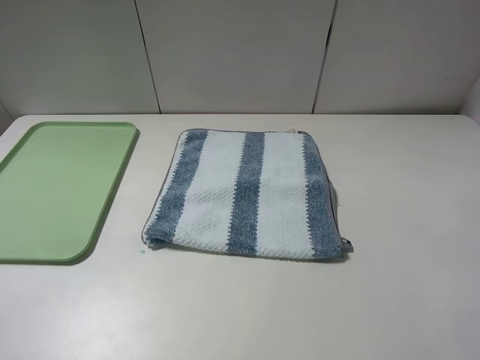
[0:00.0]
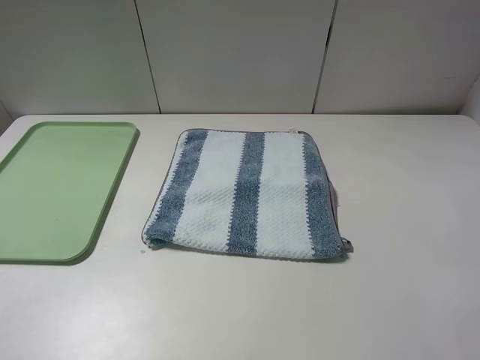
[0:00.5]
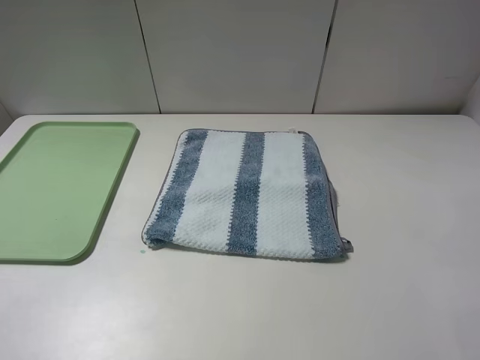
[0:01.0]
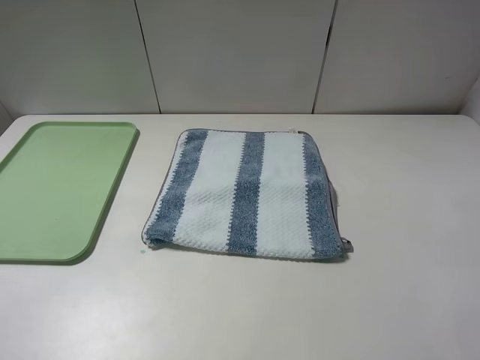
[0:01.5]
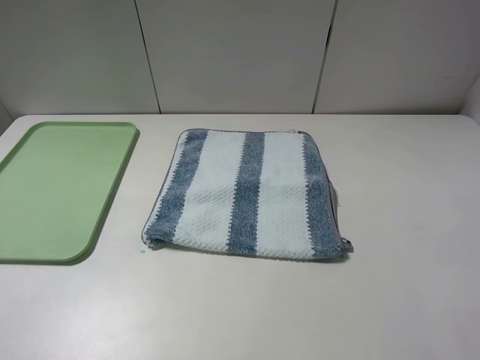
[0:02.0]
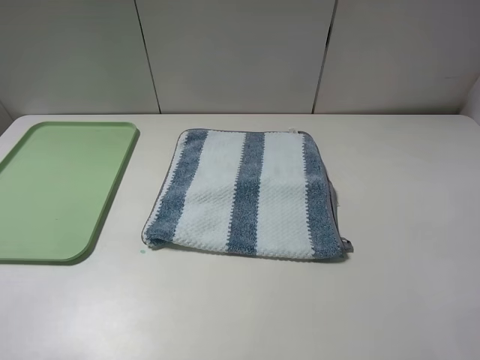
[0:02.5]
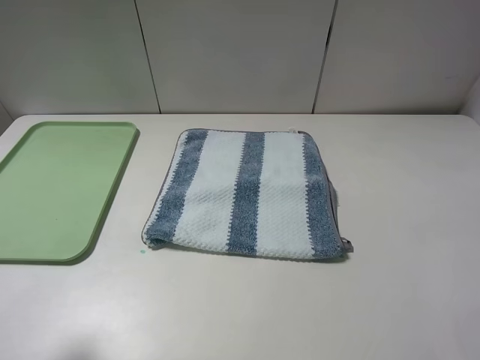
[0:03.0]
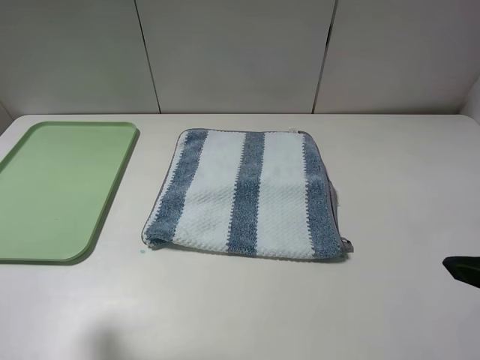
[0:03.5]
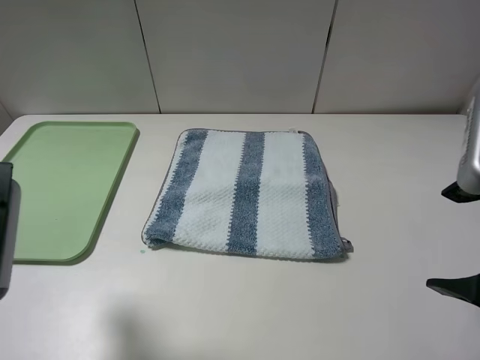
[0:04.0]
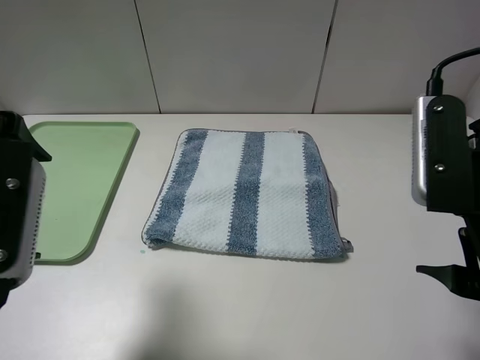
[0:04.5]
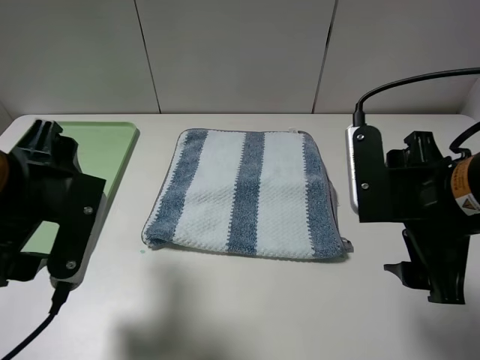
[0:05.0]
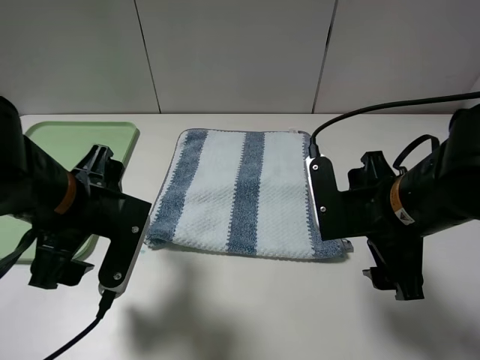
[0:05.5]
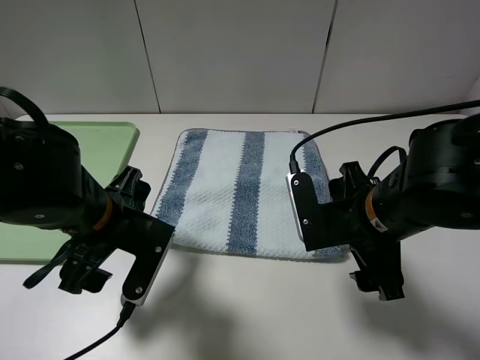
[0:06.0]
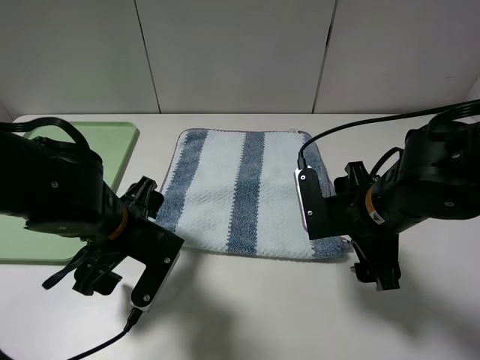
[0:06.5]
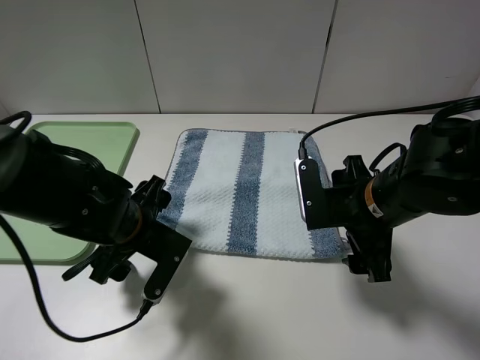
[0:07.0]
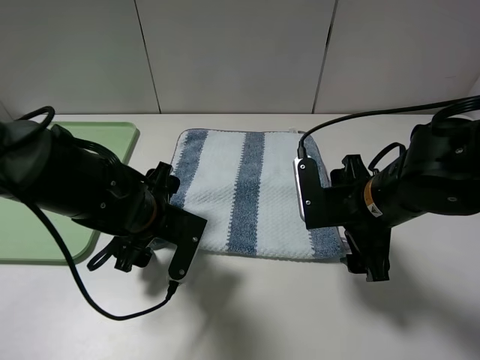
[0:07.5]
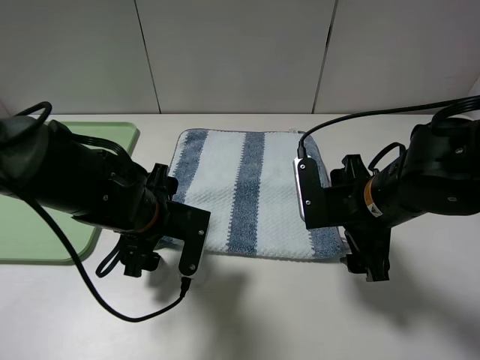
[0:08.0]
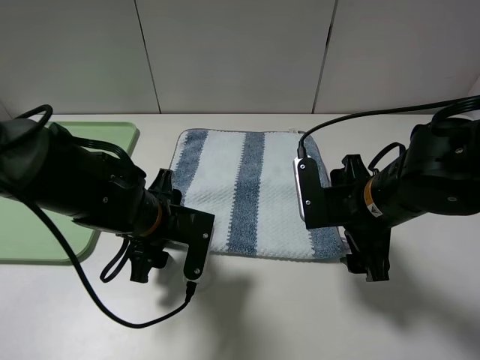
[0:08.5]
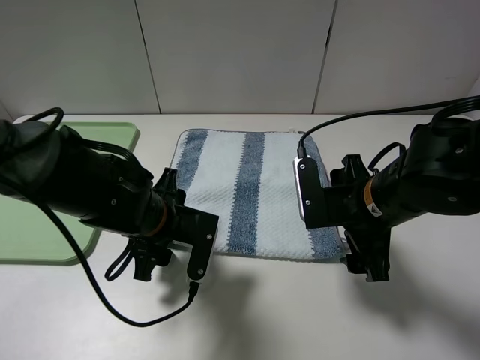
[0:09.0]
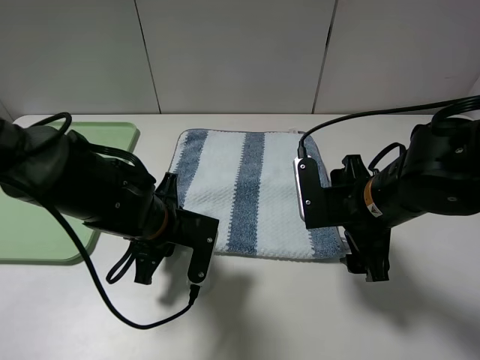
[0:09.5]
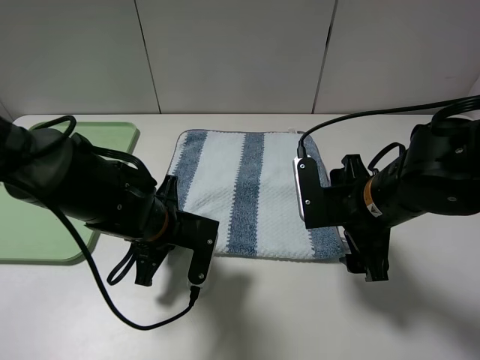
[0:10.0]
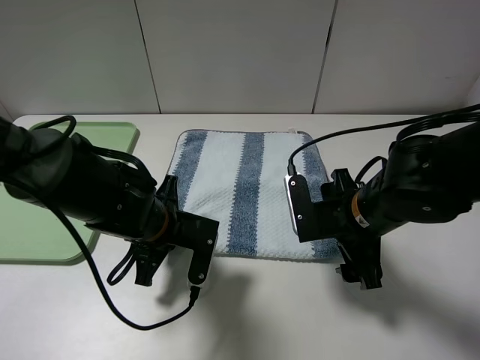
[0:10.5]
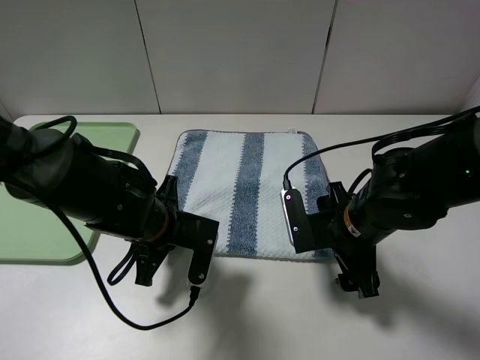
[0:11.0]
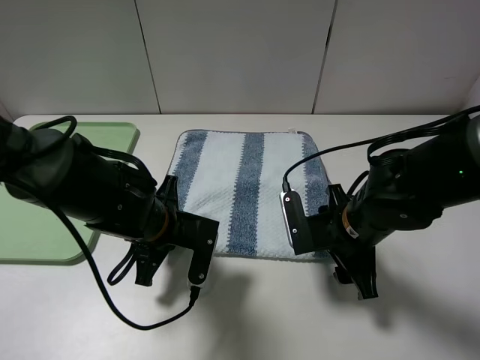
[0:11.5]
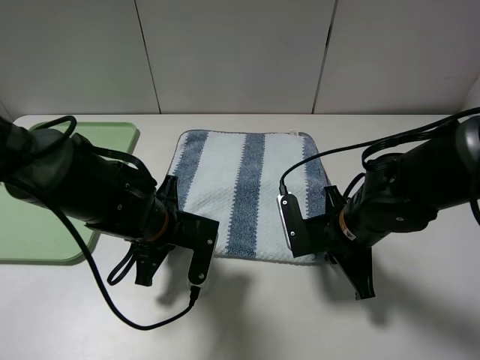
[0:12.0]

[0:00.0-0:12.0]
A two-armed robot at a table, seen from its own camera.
Step, 0:00.0 to 0:10.0: Grasp the blue white towel with the left gripper.
0:00.0 to 0:02.0: The two grippers keep their place.
0:02.0 to 0:04.0: The left gripper heads forward and to the right, covering approximately 15 cm. The right gripper shifts approximately 15 cm forward and to the left.
0:04.0 to 0:06.0: The right gripper moves downward, to the left and forward, roughly 15 cm, while the left gripper is displaced downward, to the right and forward by roughly 15 cm.
0:06.0 to 0:08.0: The left gripper is displaced downward by some 5 cm.
0:08.0 to 0:10.0: The left gripper closes its fingers.
0:10.0 to 0:12.0: The right gripper is displaced downward by some 5 cm, and closes its fingers.

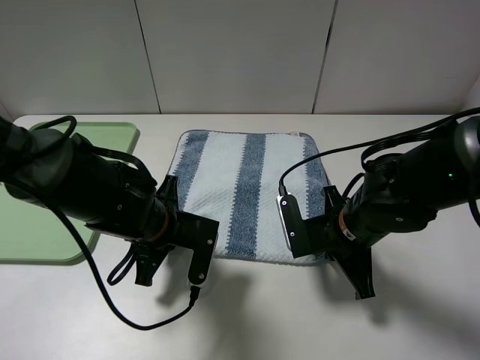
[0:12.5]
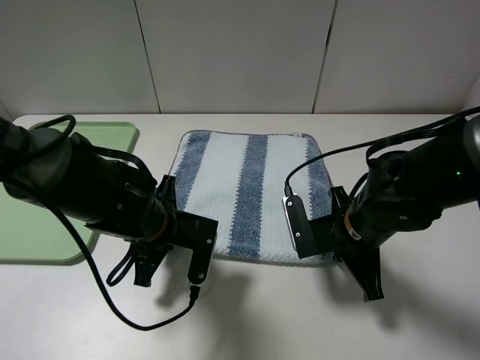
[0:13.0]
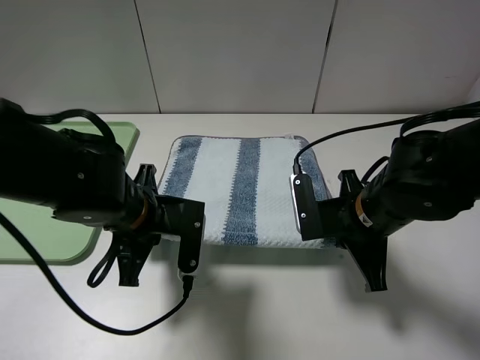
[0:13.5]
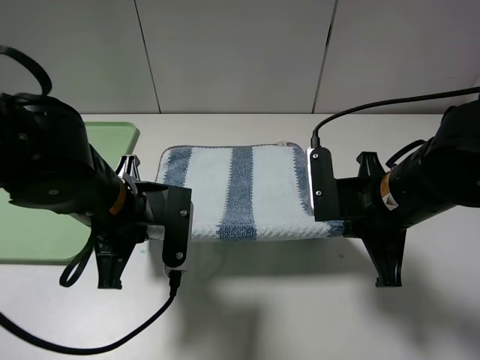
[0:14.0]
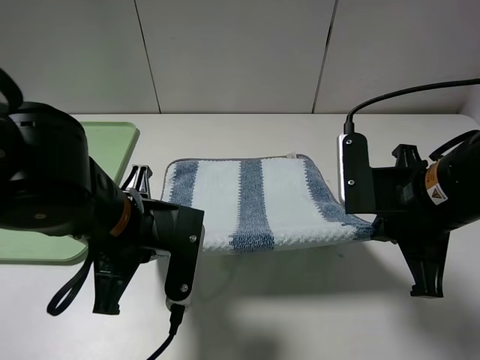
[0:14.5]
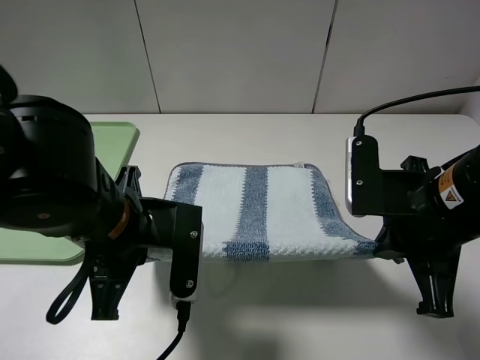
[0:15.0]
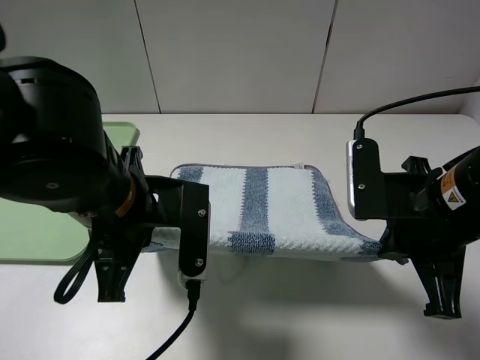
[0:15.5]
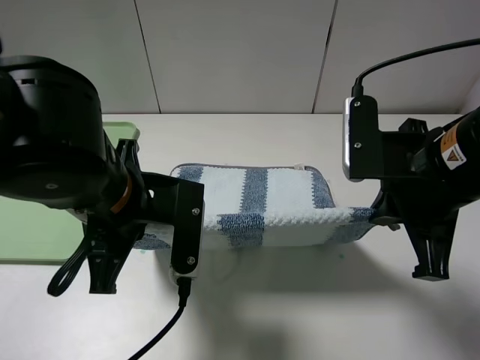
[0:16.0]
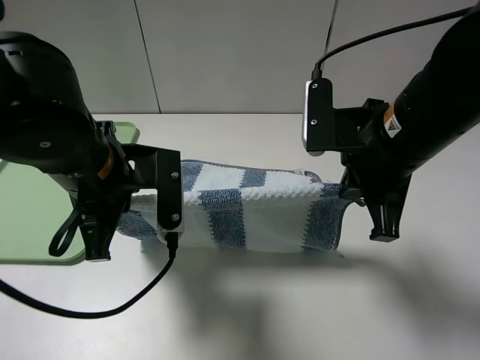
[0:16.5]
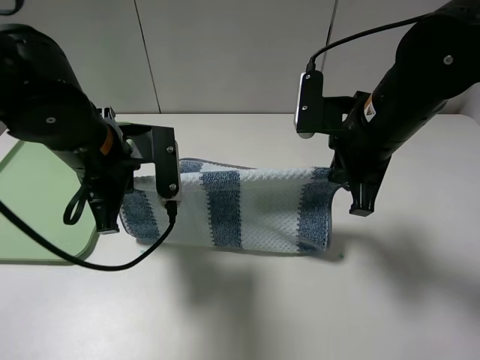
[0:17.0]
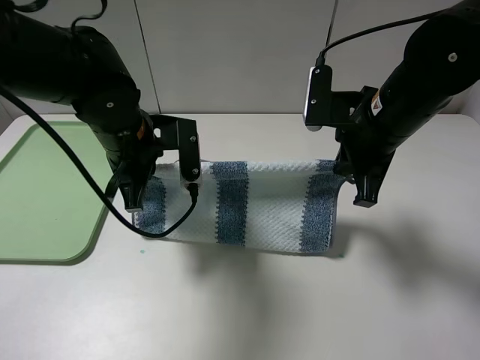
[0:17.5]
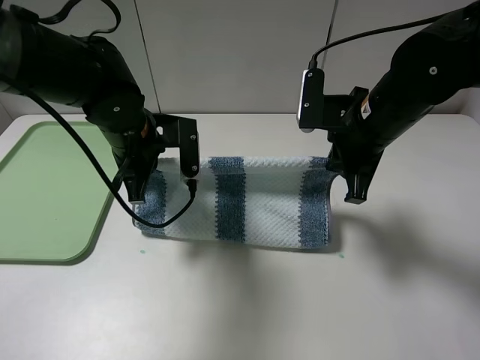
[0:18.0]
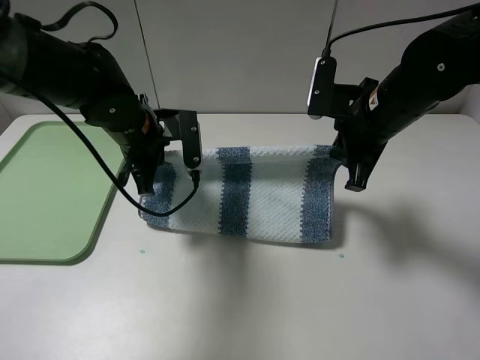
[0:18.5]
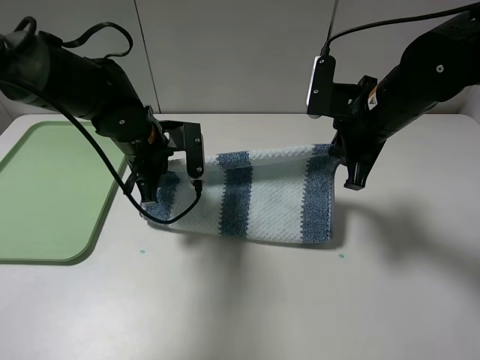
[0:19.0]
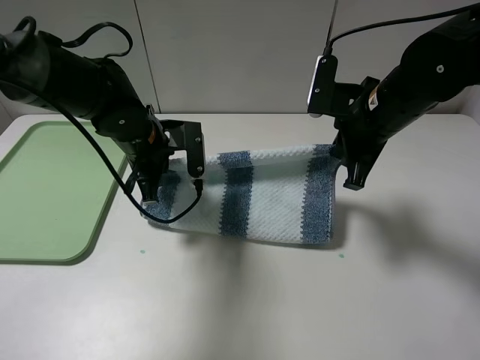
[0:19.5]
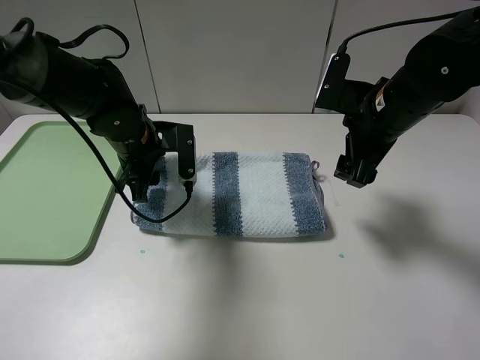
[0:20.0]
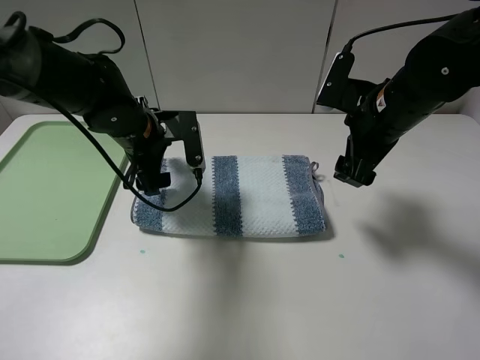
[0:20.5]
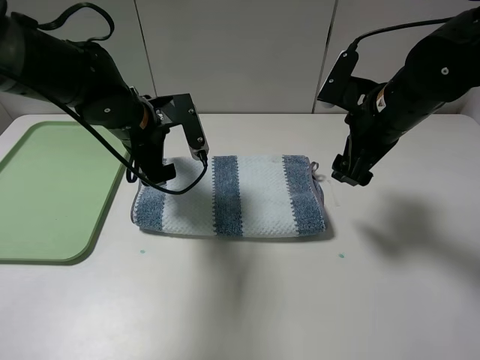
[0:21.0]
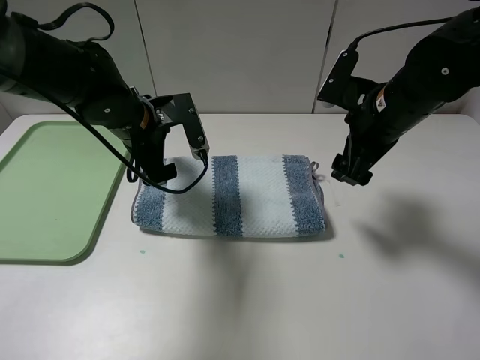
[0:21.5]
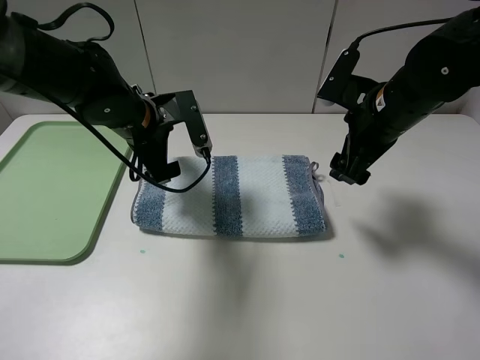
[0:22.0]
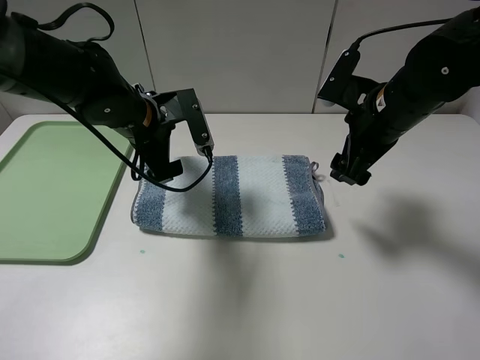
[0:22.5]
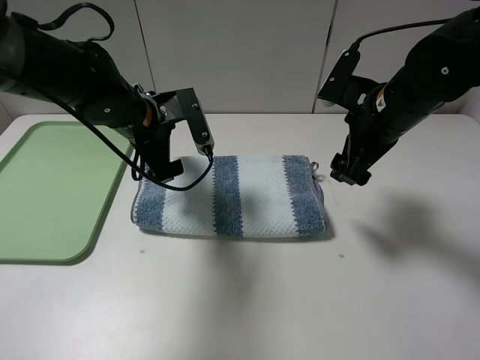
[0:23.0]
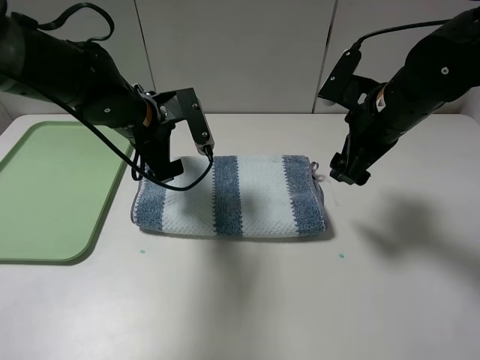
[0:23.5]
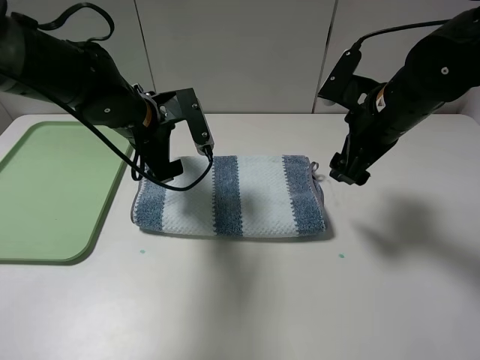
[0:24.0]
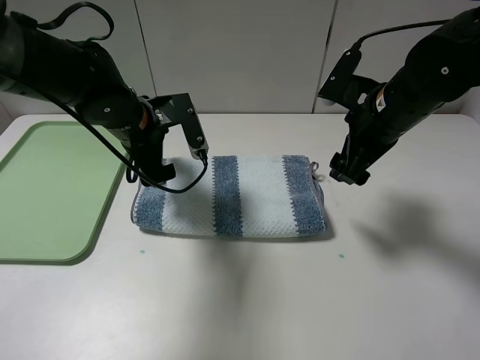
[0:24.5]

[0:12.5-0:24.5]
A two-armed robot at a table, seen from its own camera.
Step, 0:13.0 to 0:19.5: Fold the blue white towel upwards with the right gripper.
Step, 0:20.0 to 0:21.5: Fold the blue white towel upwards with the left gripper.
0:12.5 to 0:14.5: The left gripper moves upward and backward, about 10 cm; the right gripper travels upward by about 10 cm.
0:14.5 to 0:16.5: The right gripper ends up roughly 5 cm from where it was. Meanwhile the left gripper shifts by roughly 5 cm.
0:16.5 to 0:18.5: The two grippers go about 10 cm forward.
0:18.5 to 0:20.5: The left gripper opens its fingers, while the right gripper opens.
0:20.5 to 0:24.5: There are only small adjustments of the grippers.

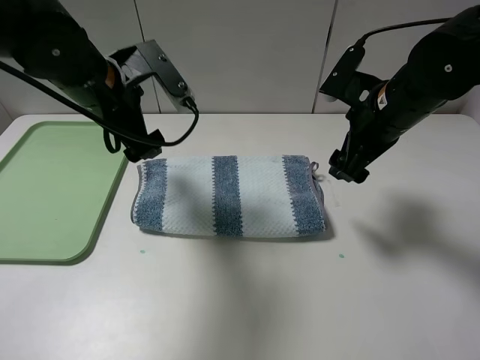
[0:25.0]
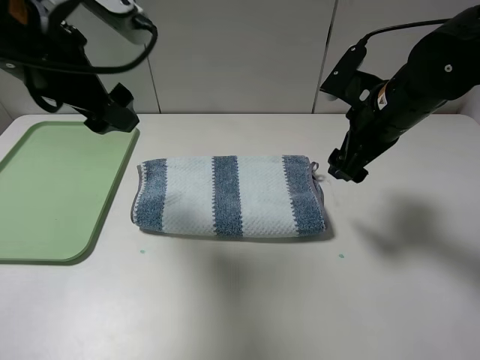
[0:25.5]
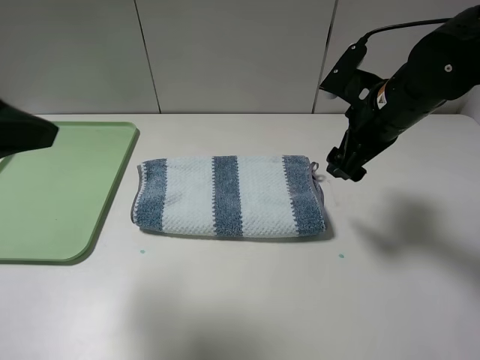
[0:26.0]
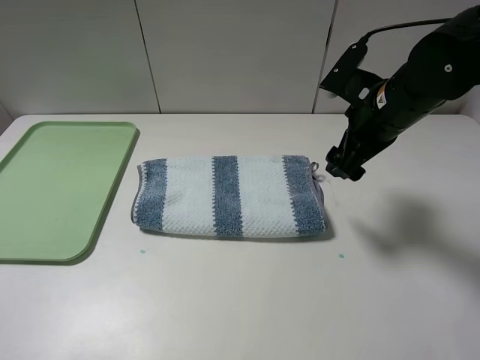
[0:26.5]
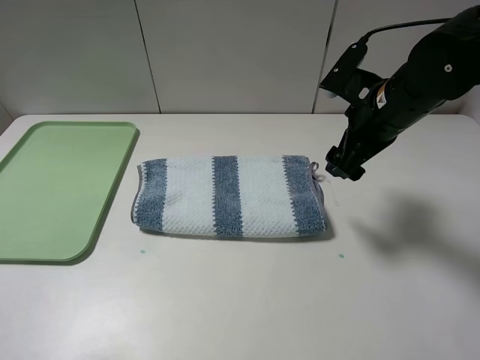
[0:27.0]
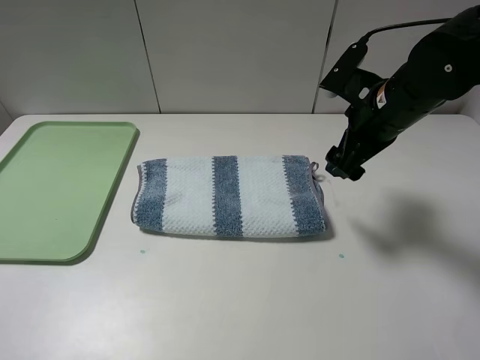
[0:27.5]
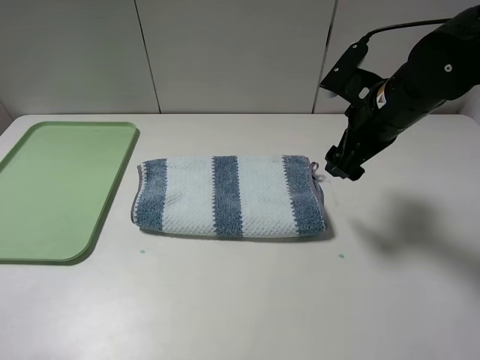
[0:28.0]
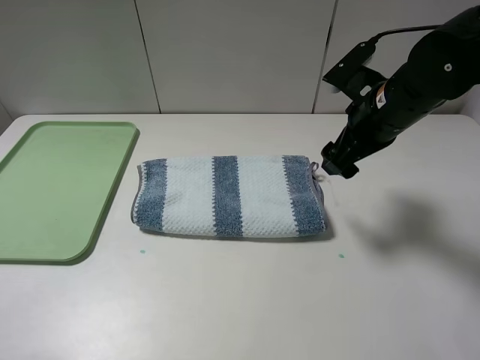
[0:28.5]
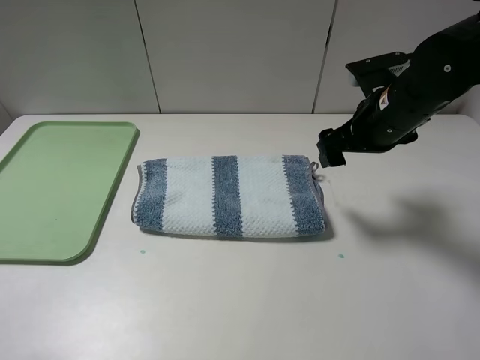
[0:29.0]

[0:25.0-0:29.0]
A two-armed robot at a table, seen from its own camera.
0:25.0 to 0:27.0: The left gripper moves backward and to the left, roughly 30 cm.
